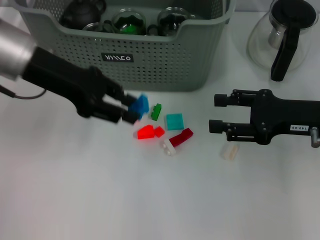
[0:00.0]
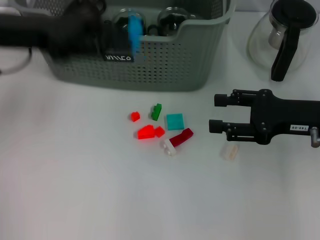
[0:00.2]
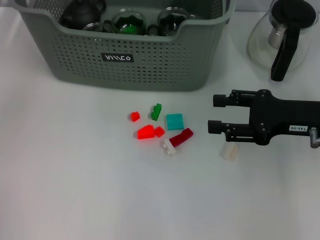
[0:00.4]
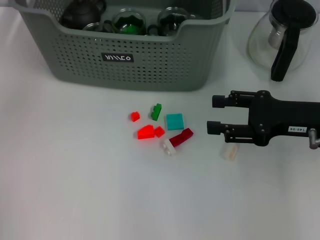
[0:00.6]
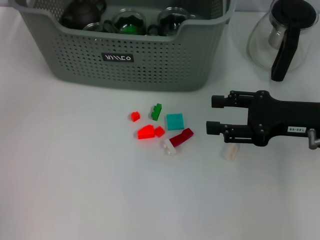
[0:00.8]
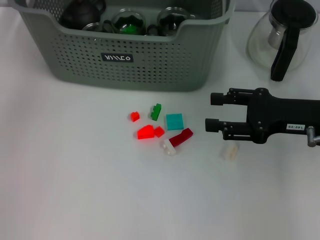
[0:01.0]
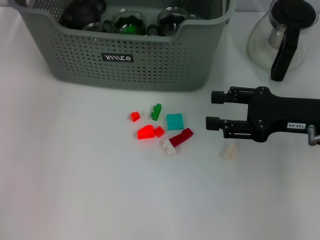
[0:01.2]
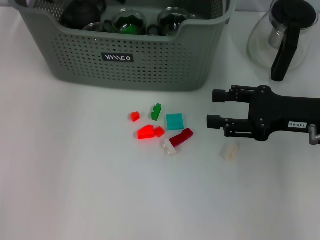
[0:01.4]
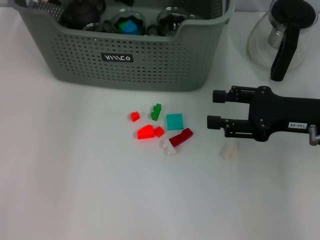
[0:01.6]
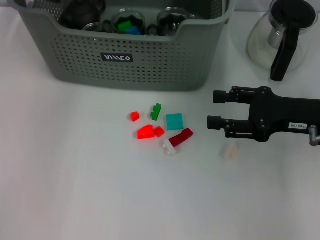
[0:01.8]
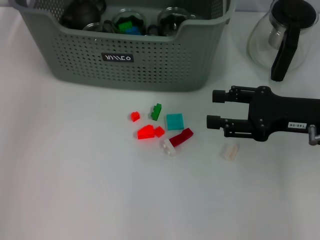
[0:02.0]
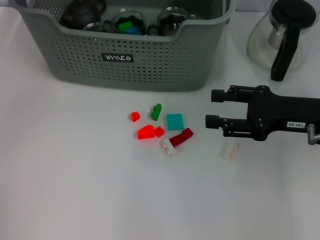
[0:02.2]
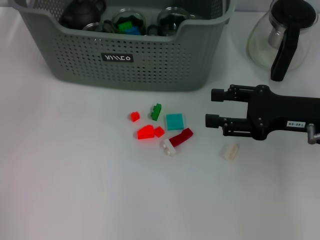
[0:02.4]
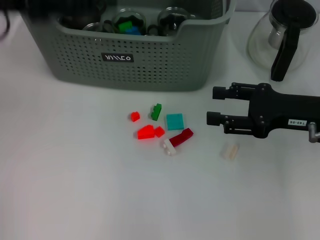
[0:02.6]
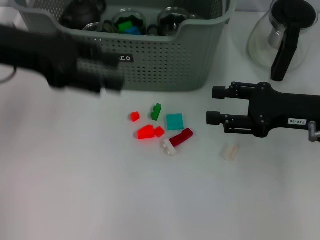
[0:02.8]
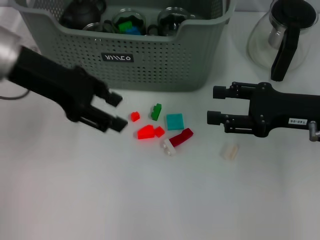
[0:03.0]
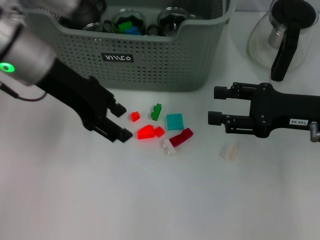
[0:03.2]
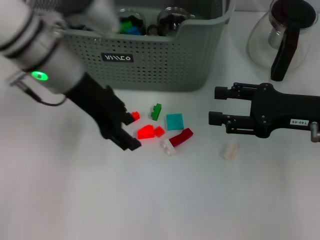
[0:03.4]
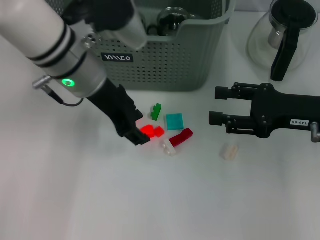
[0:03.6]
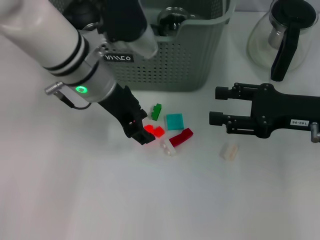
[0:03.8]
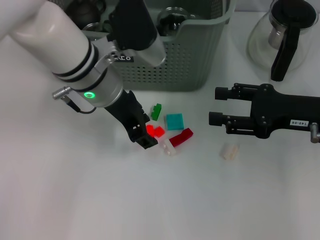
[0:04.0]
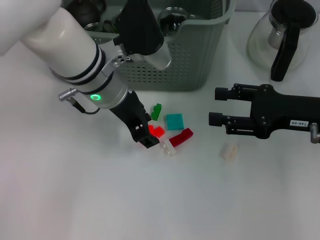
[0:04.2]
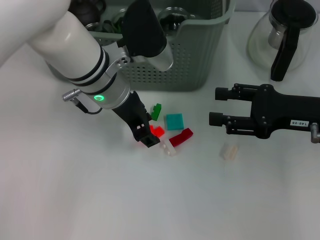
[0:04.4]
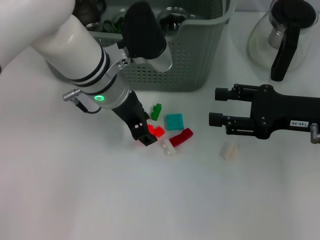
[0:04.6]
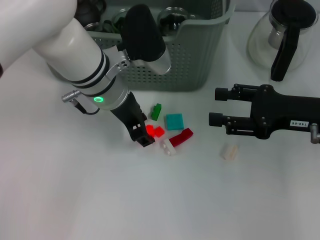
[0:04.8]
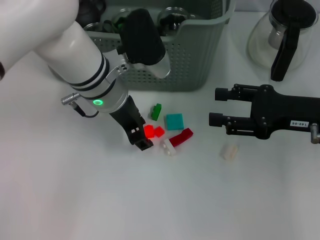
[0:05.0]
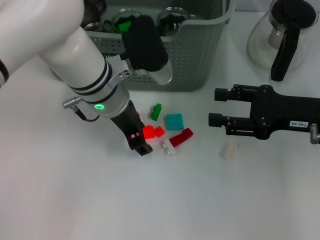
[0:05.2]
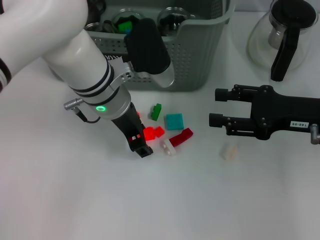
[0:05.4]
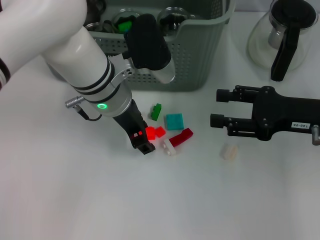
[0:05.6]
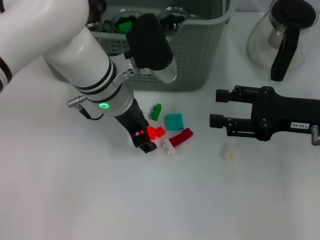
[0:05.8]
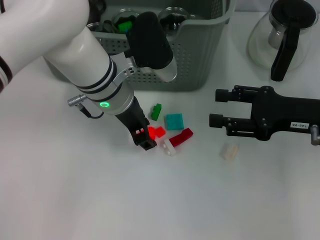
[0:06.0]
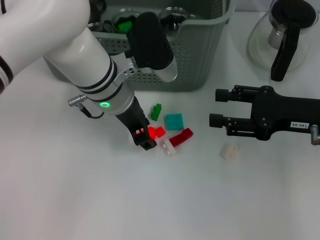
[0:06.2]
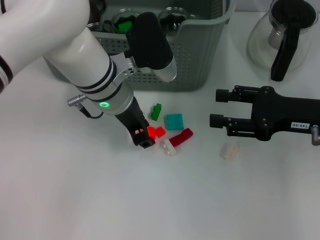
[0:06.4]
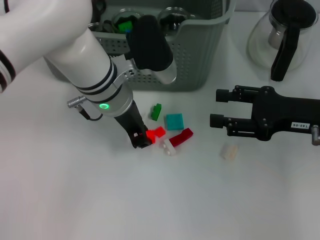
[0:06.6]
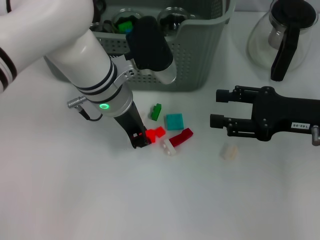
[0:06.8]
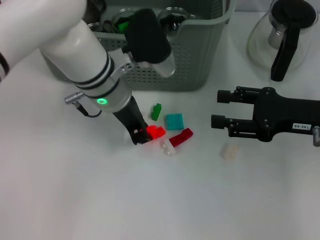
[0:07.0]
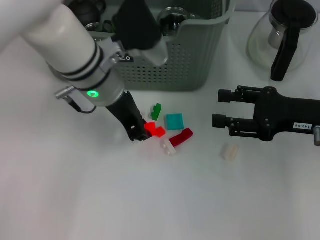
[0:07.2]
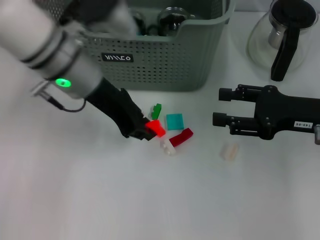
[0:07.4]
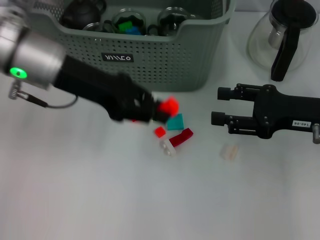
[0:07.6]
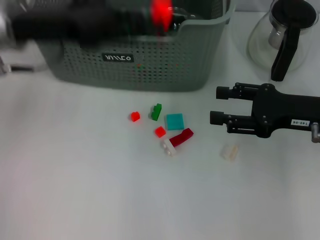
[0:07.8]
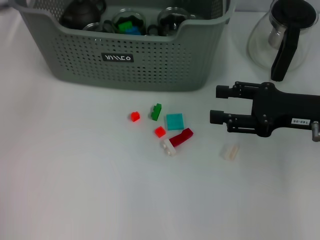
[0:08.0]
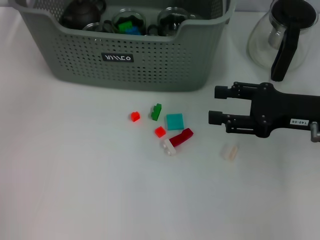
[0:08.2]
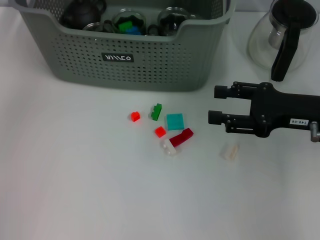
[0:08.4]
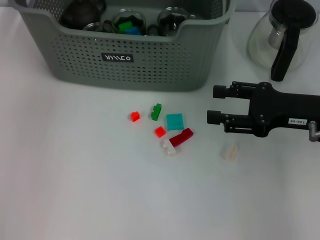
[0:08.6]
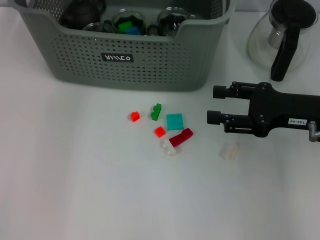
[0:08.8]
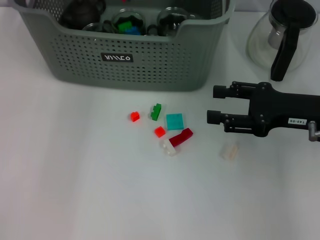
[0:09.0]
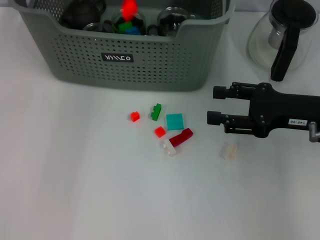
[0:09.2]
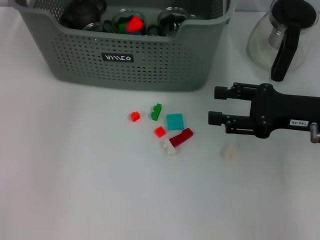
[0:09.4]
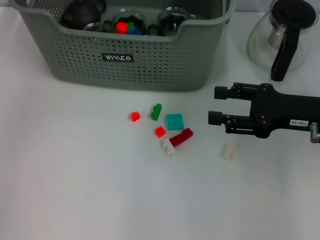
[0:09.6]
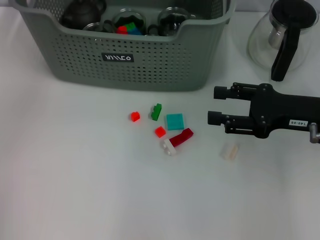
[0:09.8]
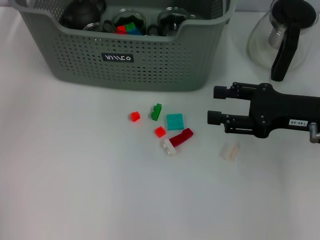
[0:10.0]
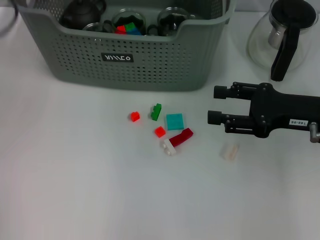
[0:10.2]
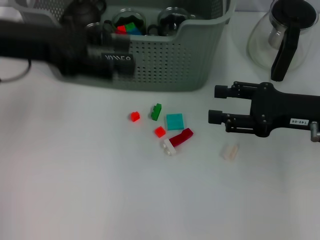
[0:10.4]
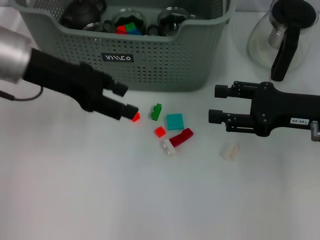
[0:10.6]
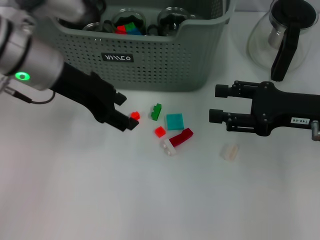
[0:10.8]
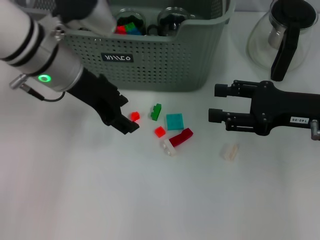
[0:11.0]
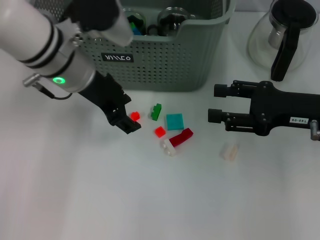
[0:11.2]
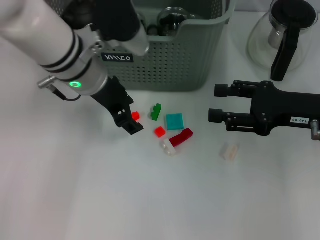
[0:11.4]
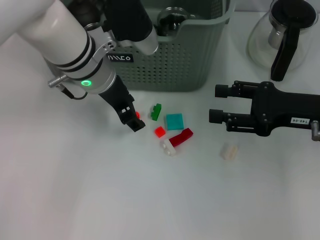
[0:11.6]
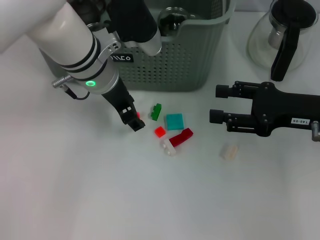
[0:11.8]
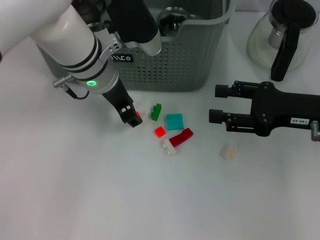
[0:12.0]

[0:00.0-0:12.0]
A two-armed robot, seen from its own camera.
Task of the whole recording: pick up the teacup on the table and place it into the storage bin, pick up the block on the table and place it into the storage bin.
Step, 0.0 to 1.8 s: Place the dark blue block in the storage box with left gripper.
Step, 2.0 to 6.6 s: Grasp the orange block with left gripper.
Step, 6.8 to 9.4 s: Place the orange block in the storage box with left gripper.
0.0 to 1.6 s: The left gripper goes approximately 10 cm forward.
1.6 to 3.0 s: The left gripper goes roughly 15 cm backward and to the left.
3.0 to 4.4 s: The left gripper goes some 15 cm to the right and downward.
4.4 to 6.0 s: The grippers make only small movements.
6.0 to 7.6 s: The left gripper shifts approximately 10 cm to the left and upward, and closes.
7.6 to 9.0 s: The left gripper is displaced forward by about 15 cm.
9.0 to 10.4 s: The left gripper goes some 15 cm backward and to the left, and opens.
10.4 to 12.0 s: The left gripper goes about 15 cm to the right and downward.

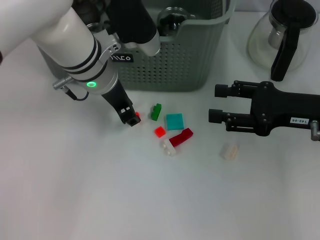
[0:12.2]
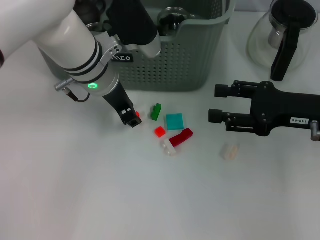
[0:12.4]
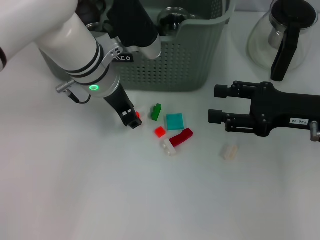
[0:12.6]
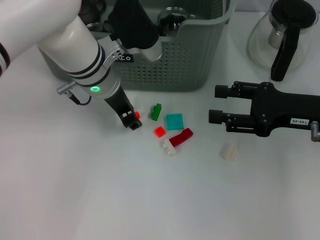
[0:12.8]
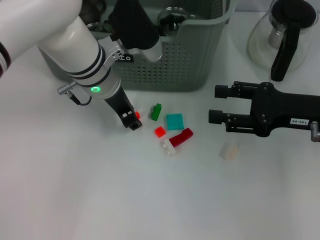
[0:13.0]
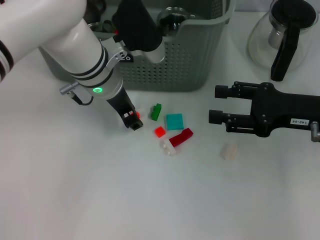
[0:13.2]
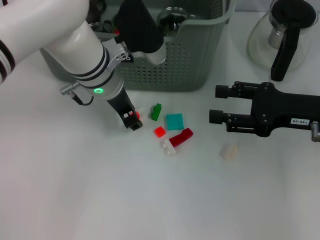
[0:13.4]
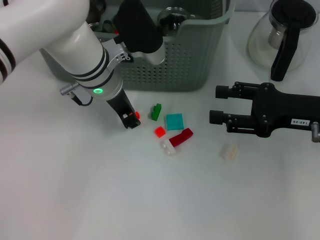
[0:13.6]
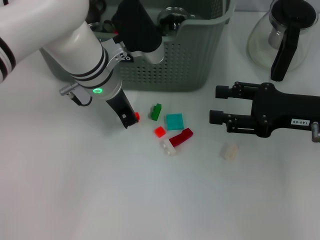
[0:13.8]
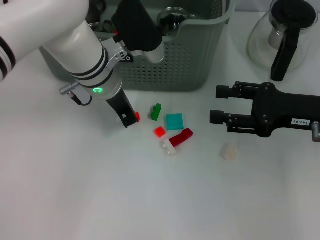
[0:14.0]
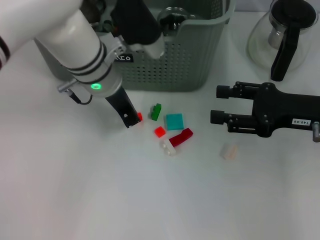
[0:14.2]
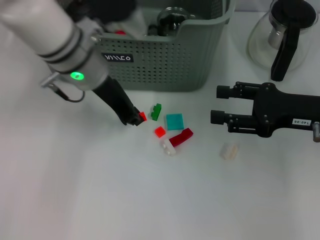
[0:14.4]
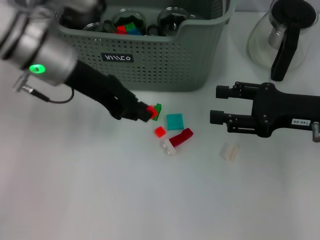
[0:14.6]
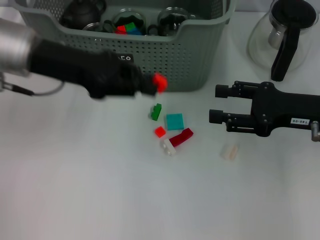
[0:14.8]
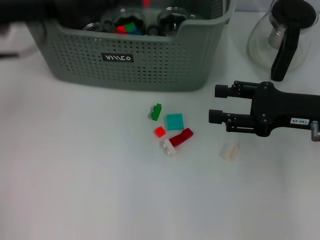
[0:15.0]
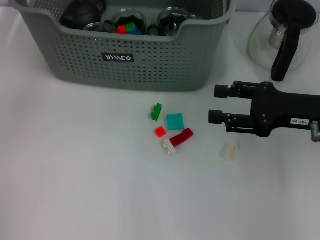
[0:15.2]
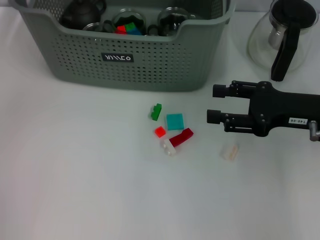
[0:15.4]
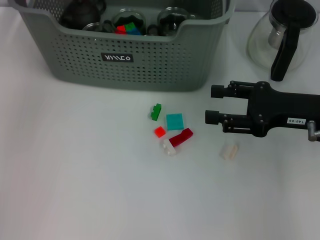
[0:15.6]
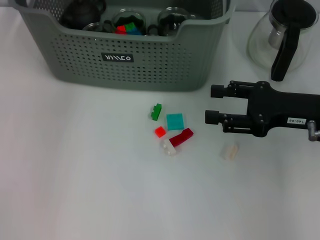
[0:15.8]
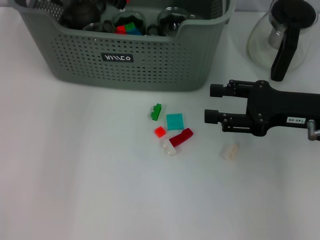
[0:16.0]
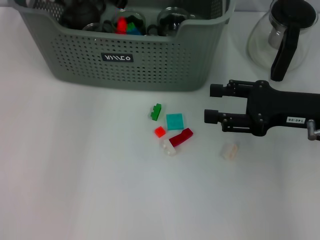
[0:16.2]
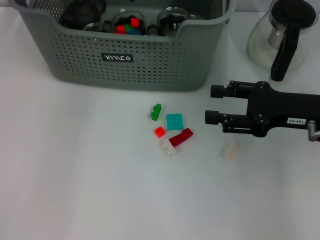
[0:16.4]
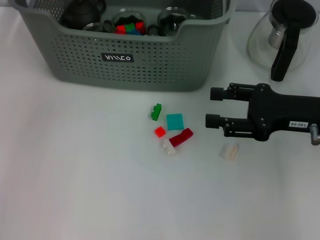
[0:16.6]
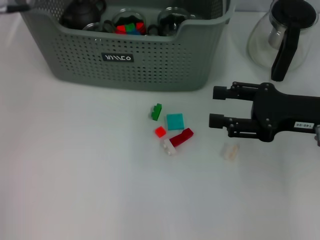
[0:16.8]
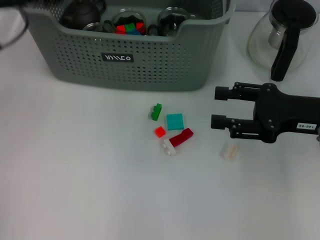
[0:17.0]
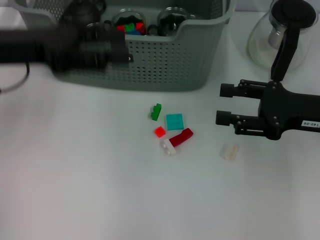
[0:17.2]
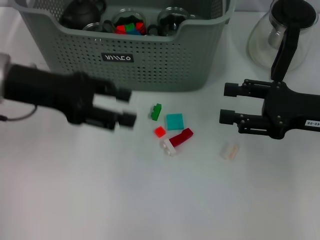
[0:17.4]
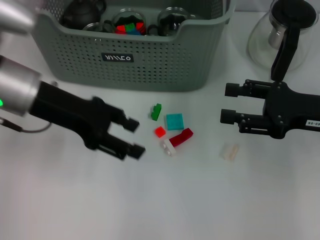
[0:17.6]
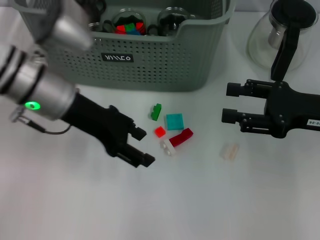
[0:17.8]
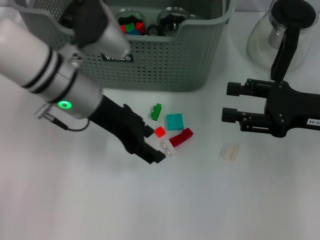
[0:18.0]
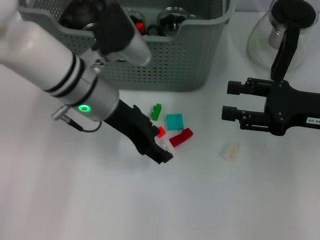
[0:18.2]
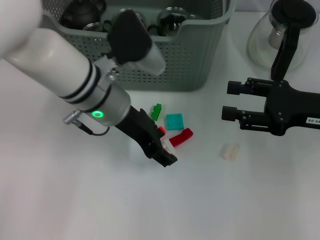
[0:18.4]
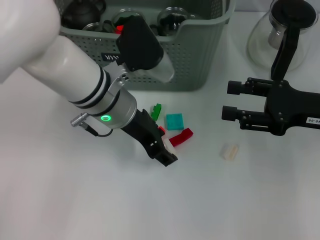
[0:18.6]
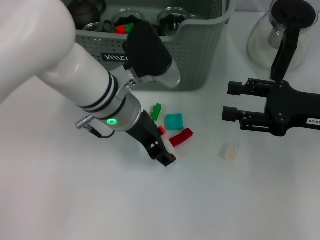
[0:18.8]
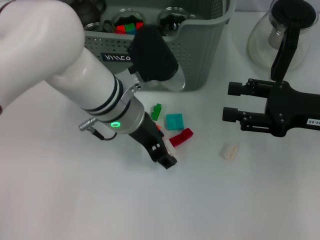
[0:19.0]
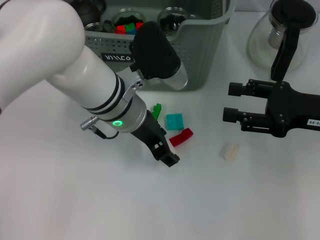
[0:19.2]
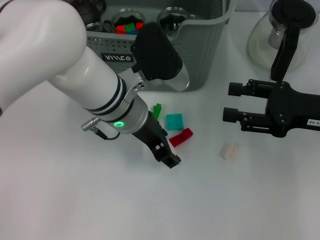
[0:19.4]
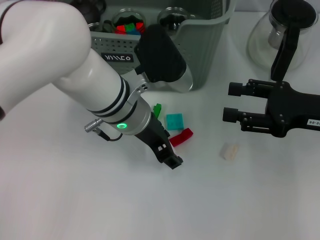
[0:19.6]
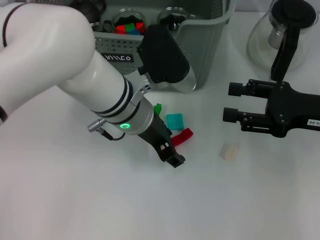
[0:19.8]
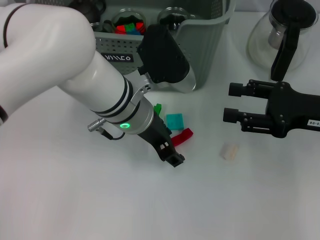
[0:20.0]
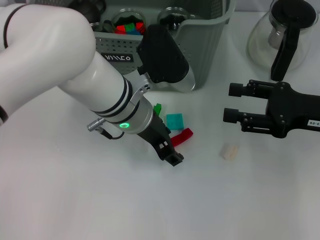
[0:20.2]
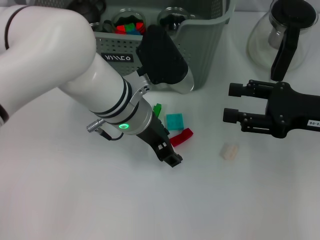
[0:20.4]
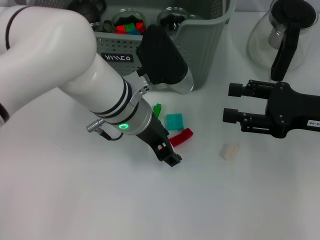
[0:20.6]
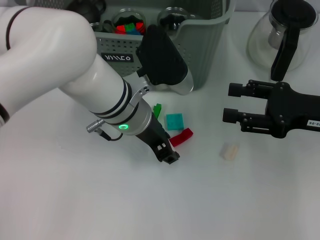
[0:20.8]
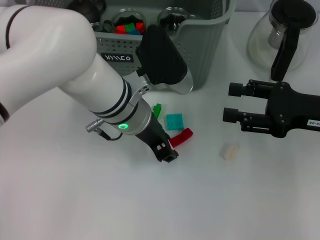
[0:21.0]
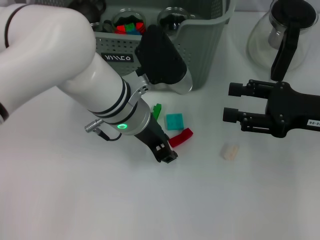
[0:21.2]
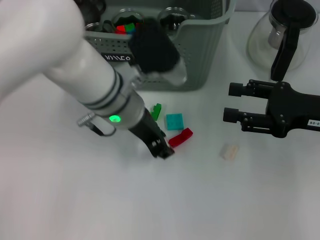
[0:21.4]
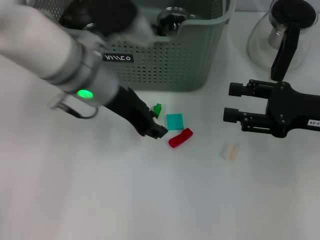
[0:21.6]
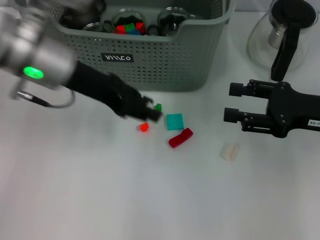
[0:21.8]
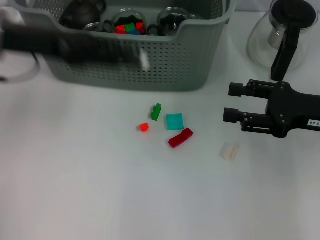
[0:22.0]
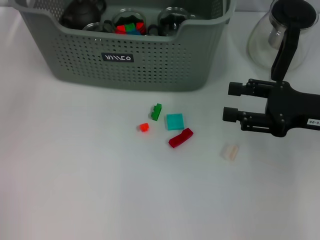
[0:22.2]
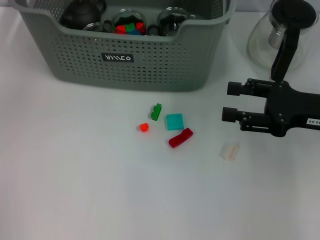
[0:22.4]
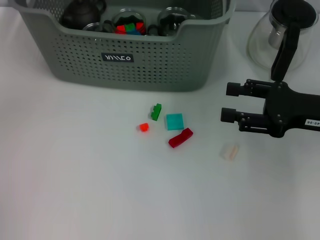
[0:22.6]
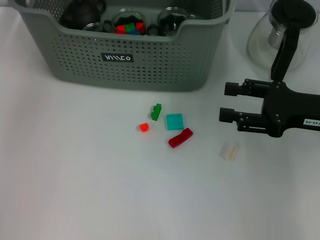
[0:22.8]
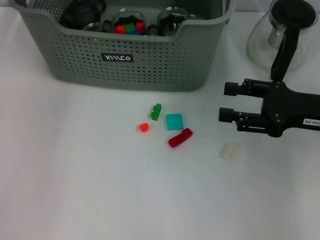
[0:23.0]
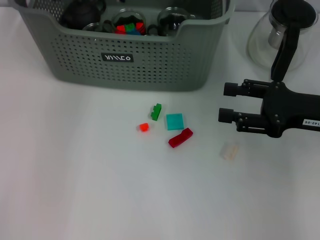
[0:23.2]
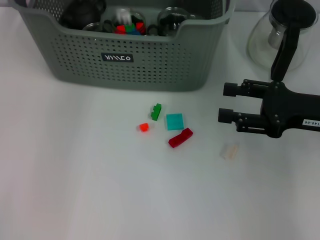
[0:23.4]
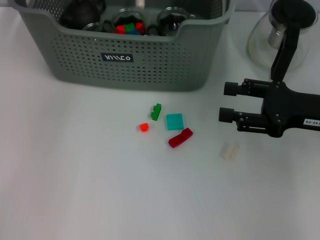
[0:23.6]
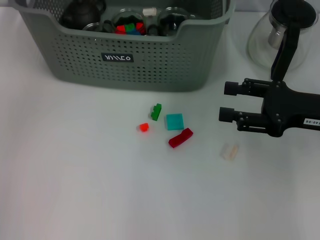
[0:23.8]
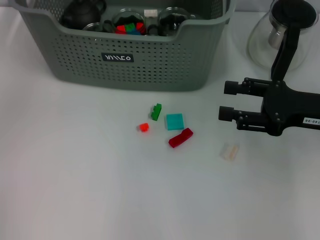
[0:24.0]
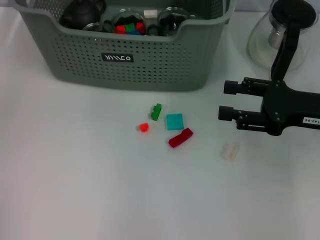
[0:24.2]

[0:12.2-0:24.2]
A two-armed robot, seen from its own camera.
Task of the whole recording: pick up the teacup on the table and place it into the storage bin, pick up the block on the table and place it into the storage bin.
Step, 14.0 to 16.2 s: Place the orange block in the storage box with left gripper.
Step, 16.4 to 21.0 s: Grasp the white block with left gripper.
Step, 21.2 to 23.4 s: Place the white block in the storage box with left gripper.
12.2 to 13.8 s: The grippers stay close to where they were, moving slightly.
13.8 to 15.2 s: The left gripper travels to the left and upward by approximately 20 cm.
16.6 to 18.2 s: The left gripper shifts about 15 cm downward, backward and to the right.
18.2 to 19.8 s: The left gripper moves to the right, approximately 5 cm.
19.8 to 21.2 s: The left gripper closes its fingers.
21.2 to 22.6 s: The left gripper shifts approximately 25 cm to the left, upward and forward.
